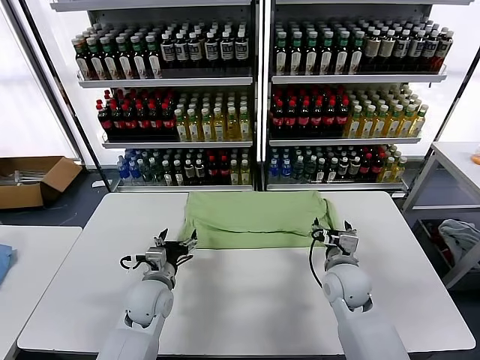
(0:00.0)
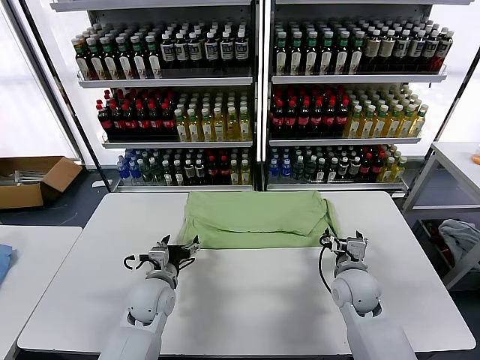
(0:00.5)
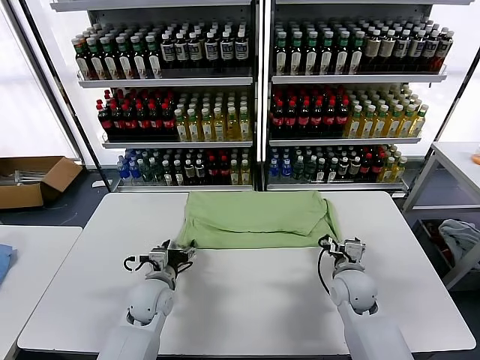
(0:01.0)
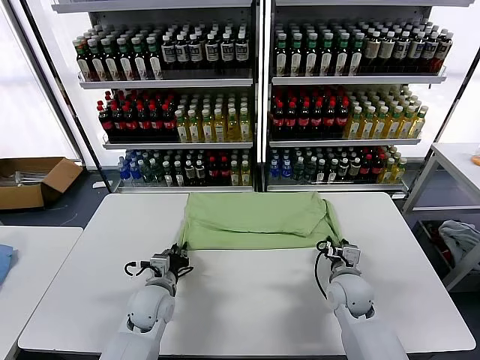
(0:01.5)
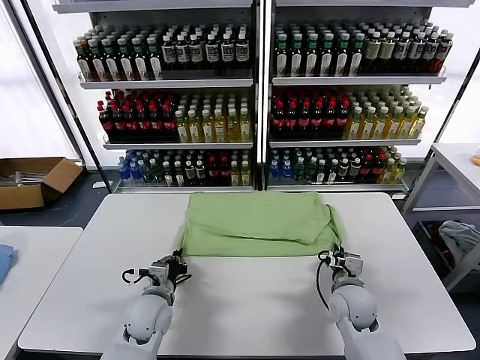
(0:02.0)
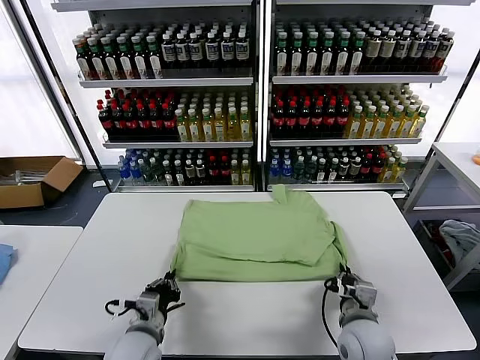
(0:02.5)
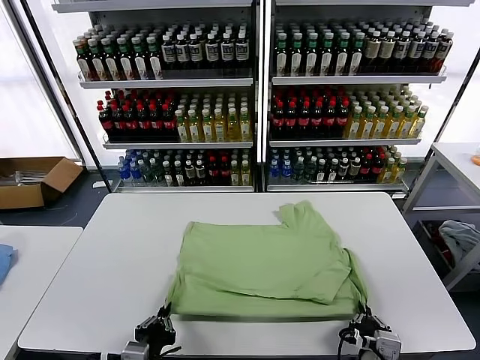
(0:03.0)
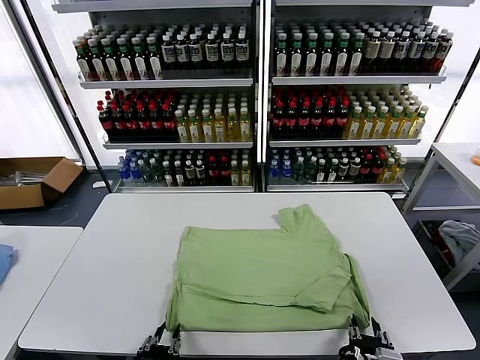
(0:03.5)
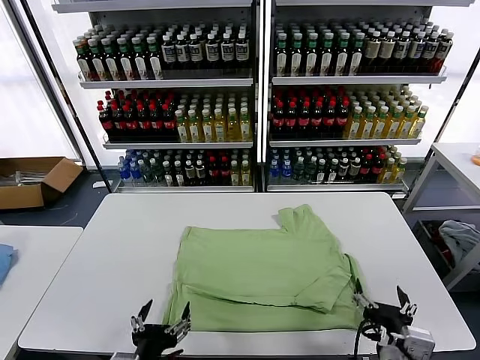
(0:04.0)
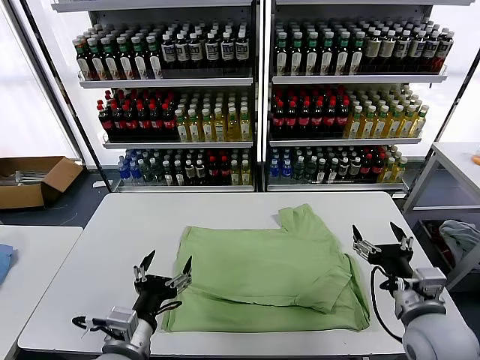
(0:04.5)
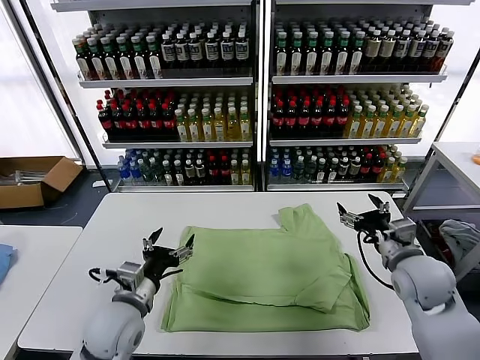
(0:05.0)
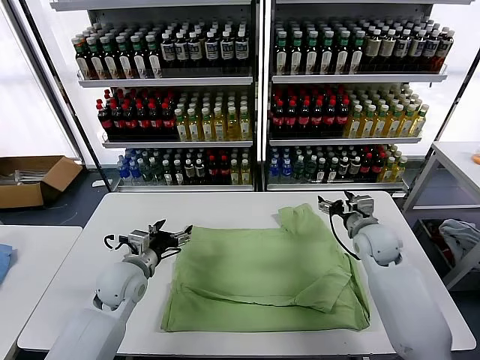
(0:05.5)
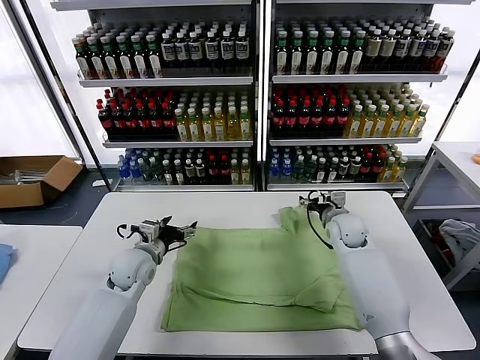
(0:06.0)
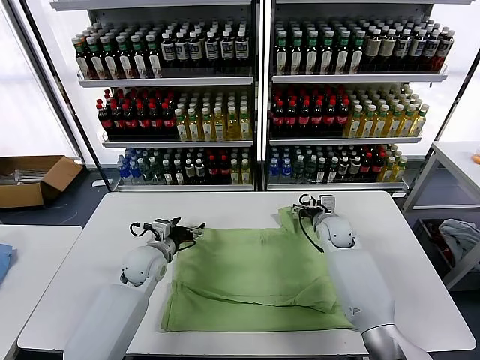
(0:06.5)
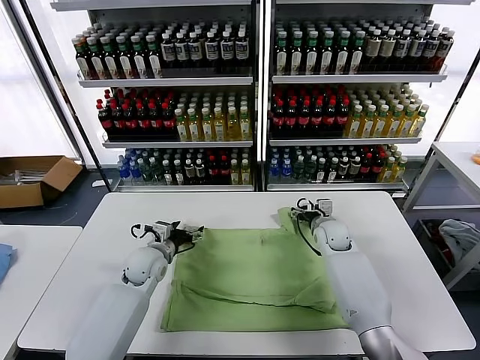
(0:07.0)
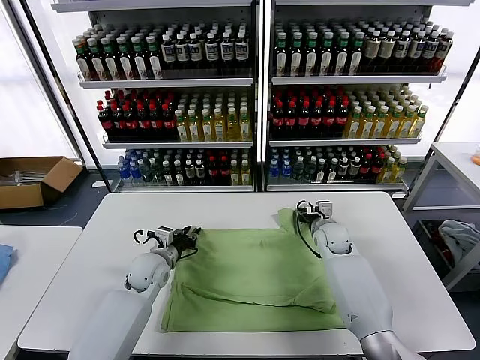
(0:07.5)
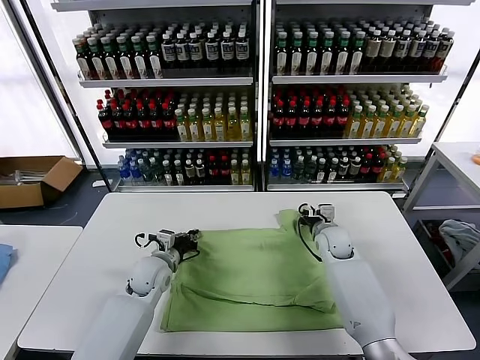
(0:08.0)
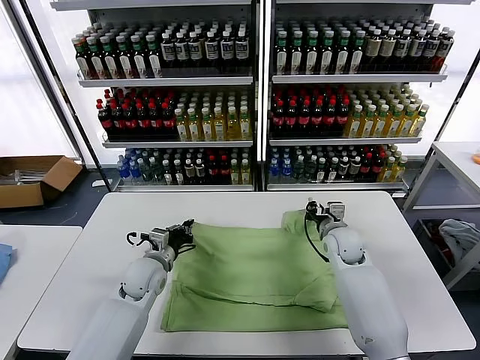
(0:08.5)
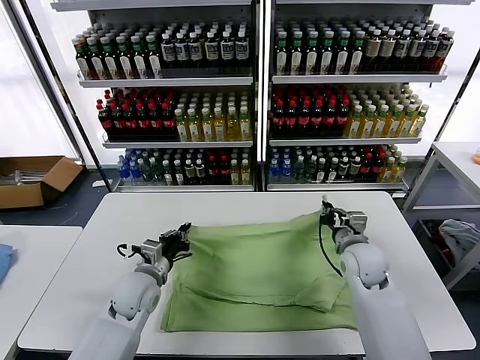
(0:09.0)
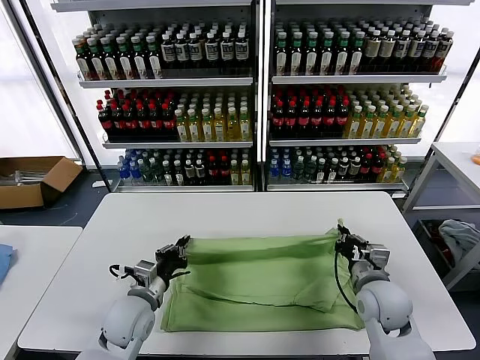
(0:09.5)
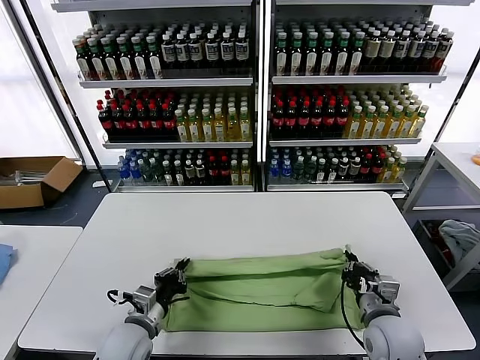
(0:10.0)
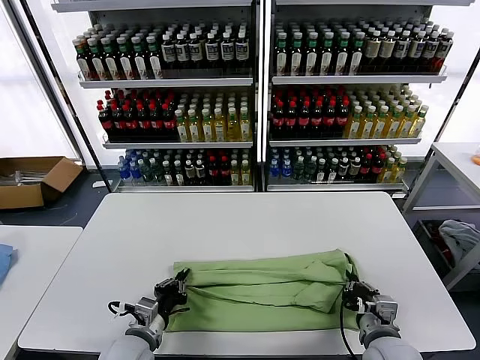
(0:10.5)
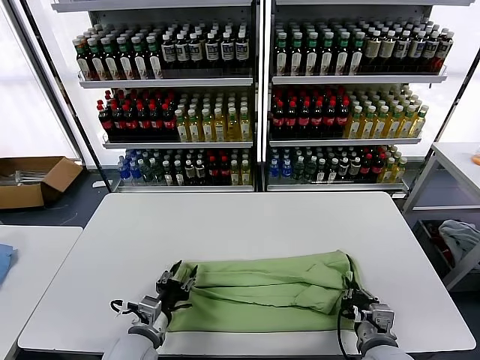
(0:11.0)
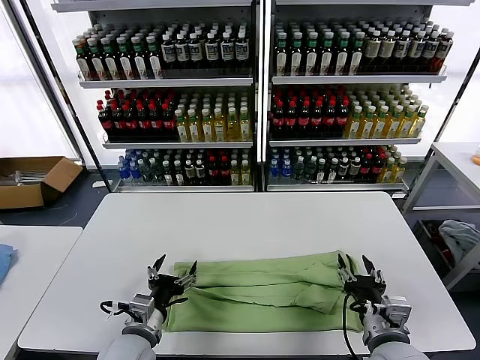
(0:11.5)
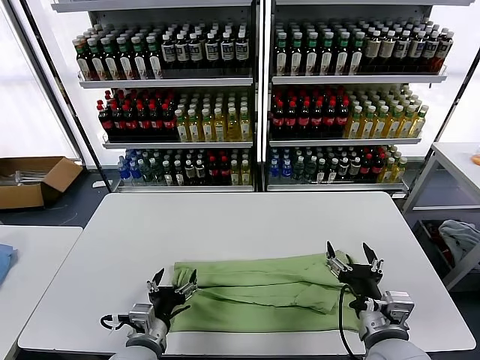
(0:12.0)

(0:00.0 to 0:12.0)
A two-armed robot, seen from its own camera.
Task of the whole recording: fold and organize the clothes.
Step, 0:00.0 - 0:03.5: Drag the clothes downward with both gripper.
Step, 0:04.0 - 0:07.5: use both grippers simultaneously to clamp the upper edge of the clothing fabric.
Step, 0:08.0 - 0:11.0: use both grippers to drag the upper edge of the fabric backward and fold it over the lower edge.
0:00.0 - 0:02.0: The right gripper changes place by some 5 cm, and closes up, while the left gripper closes its fingers.
0:02.0 - 0:04.0: The two grippers go some 25 cm backward and upward. The right gripper opens up; the left gripper opens up.
0:04.0 - 0:06.0: The two grippers go roughly 35 cm forward.
0:06.0 - 0:08.0: The right gripper closes, while the left gripper closes.
0:08.0 - 0:10.0: The left gripper moves backward, some 15 cm, while the right gripper travels backward by about 25 cm.
0:10.0 - 0:12.0: The left gripper shifts by about 5 cm, and opens its fingers. The right gripper goes approximately 10 cm upward and backward, and opens.

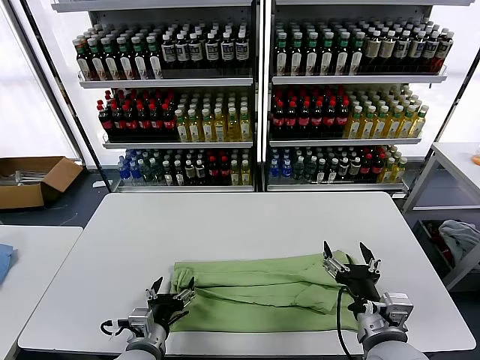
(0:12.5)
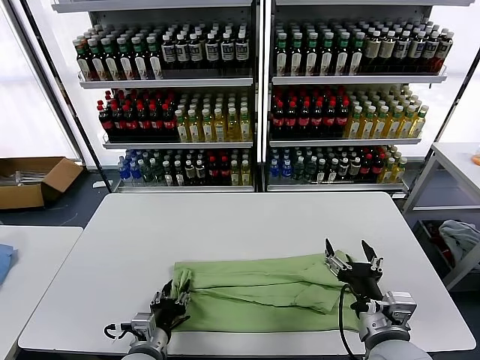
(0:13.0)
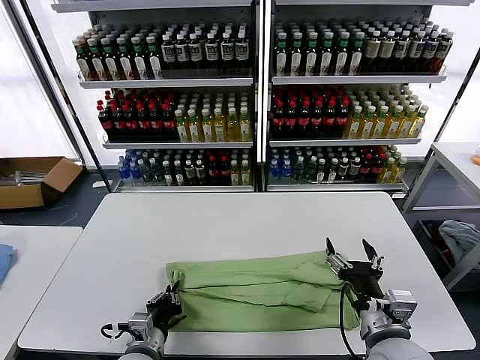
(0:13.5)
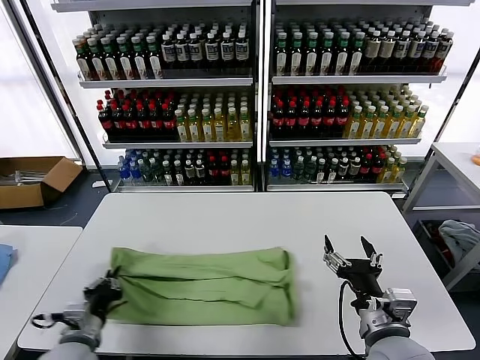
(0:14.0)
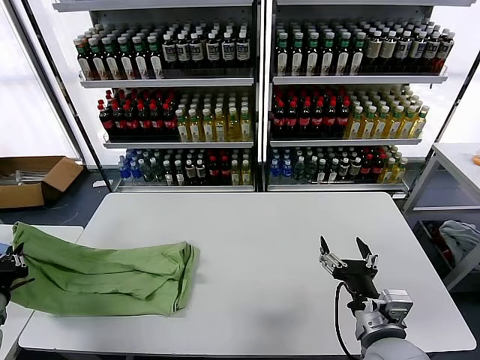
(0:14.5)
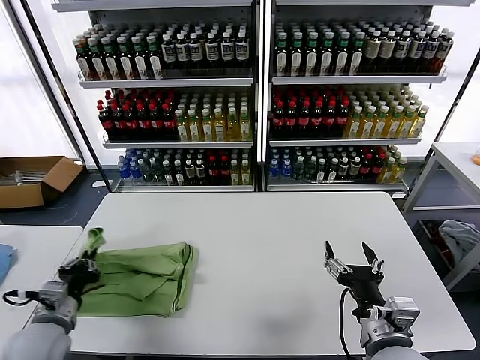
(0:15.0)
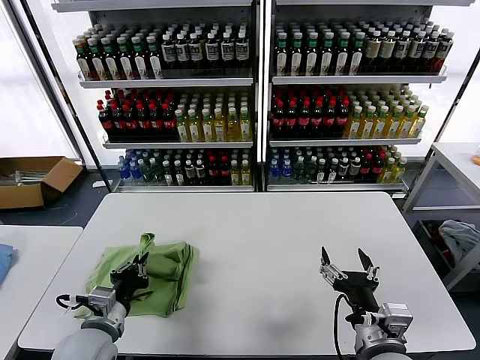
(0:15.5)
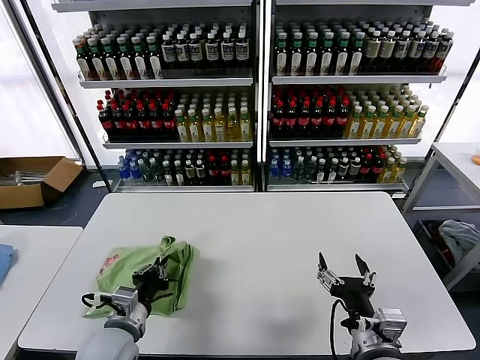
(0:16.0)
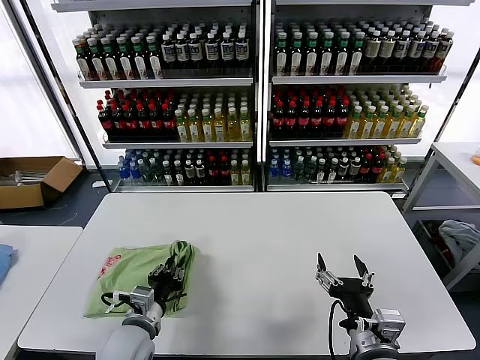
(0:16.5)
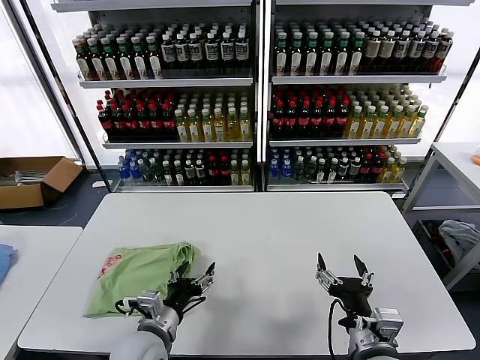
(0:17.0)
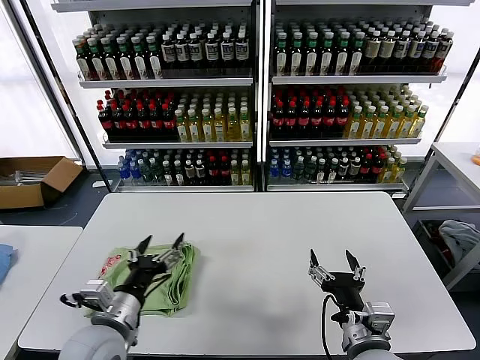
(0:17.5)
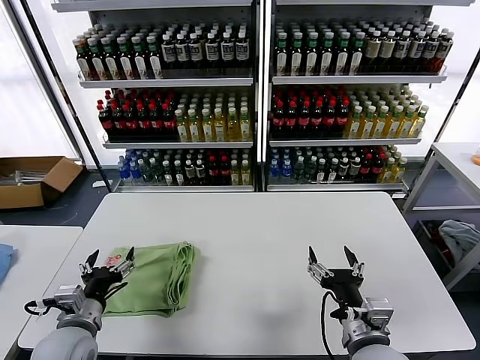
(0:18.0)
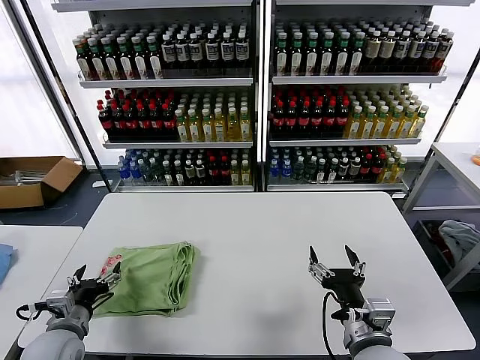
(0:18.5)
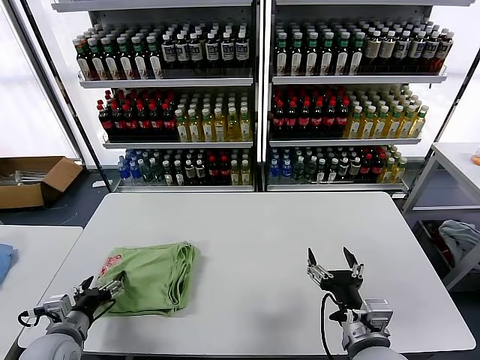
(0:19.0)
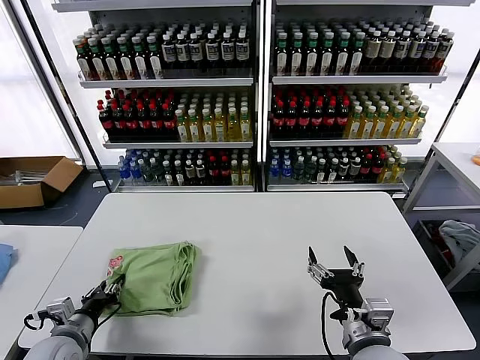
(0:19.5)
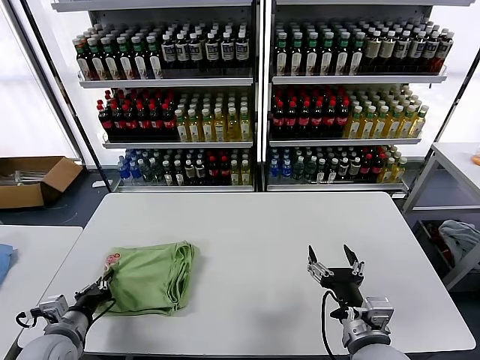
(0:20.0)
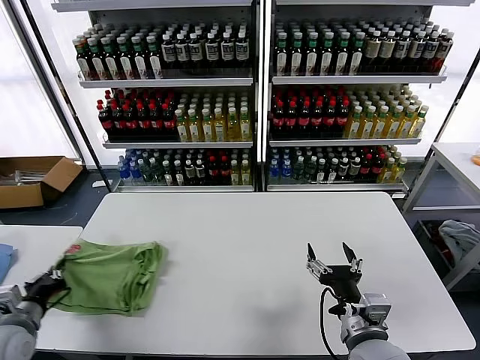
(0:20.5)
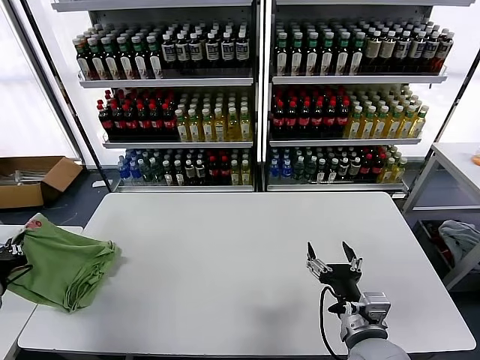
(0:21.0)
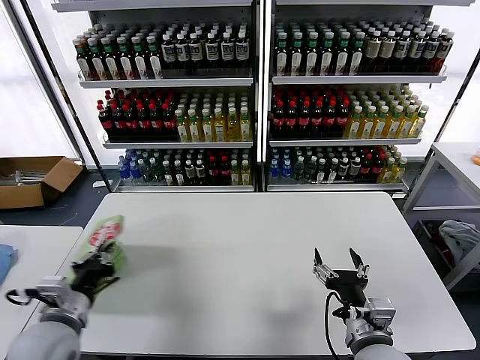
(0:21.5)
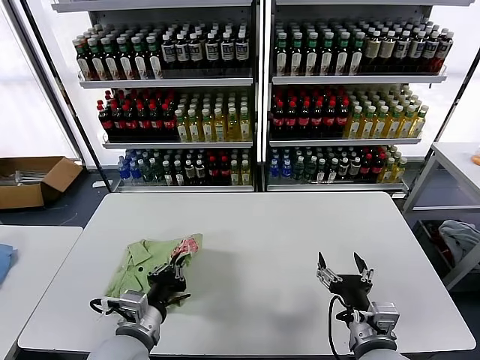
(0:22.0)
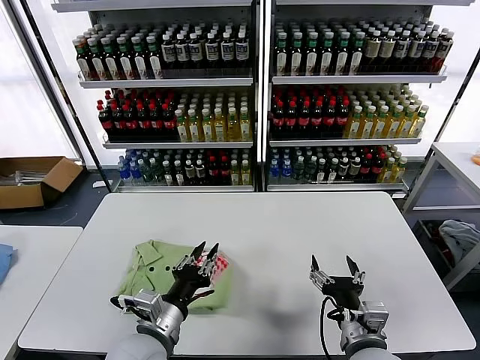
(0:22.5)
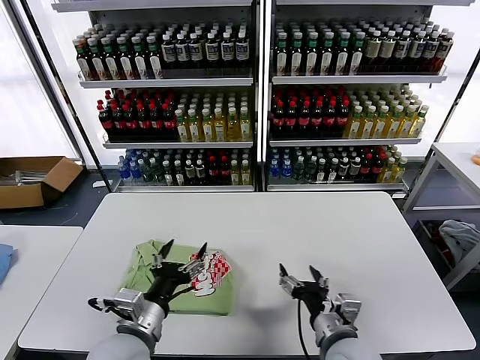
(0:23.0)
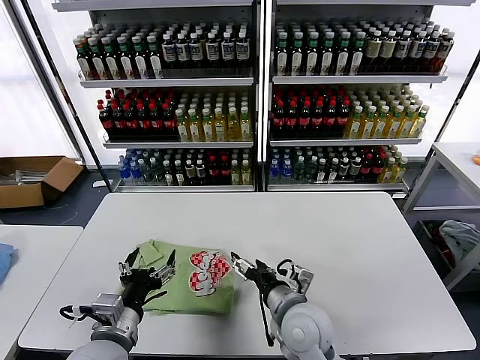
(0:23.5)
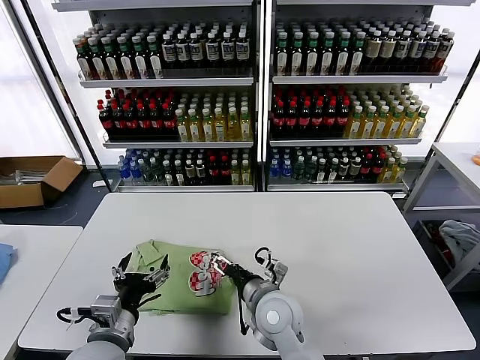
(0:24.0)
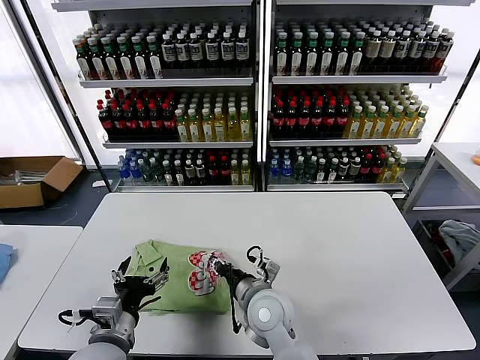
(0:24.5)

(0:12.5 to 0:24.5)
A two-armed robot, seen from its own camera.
Task of the whole recording: fold and organize the clothes.
Step, 0:13.5 - 0:16.5: use the left gripper to drag the left edge of the fabric to the left and folds it over the right edge.
Step, 0:17.0 - 0:22.5: Flip the folded clothes over with left gripper.
0:12.5 - 0:14.5: The left gripper moves to the left, about 30 cm, and closes.
0:14.5 - 0:16.5: The left gripper travels to the right by about 25 cm.
0:16.5 - 0:18.5: The left gripper travels to the left by roughly 15 cm, and opens up.
0:18.5 - 0:20.5: The left gripper goes some 10 cm to the left, and closes its fingers.
0:20.5 - 0:22.5: The left gripper heads to the right, covering about 25 cm.
0:22.5 - 0:24.5: The left gripper moves to the left, approximately 5 cm, and opens up. Meanwhile the right gripper goes approximately 20 cm to the left and forward, and closes up.

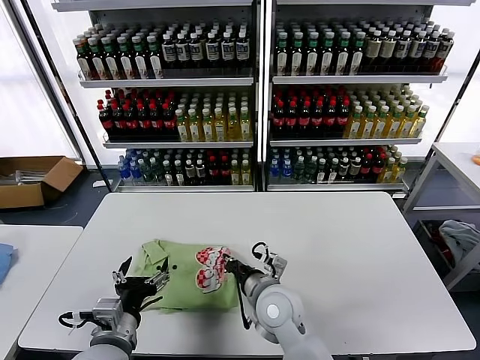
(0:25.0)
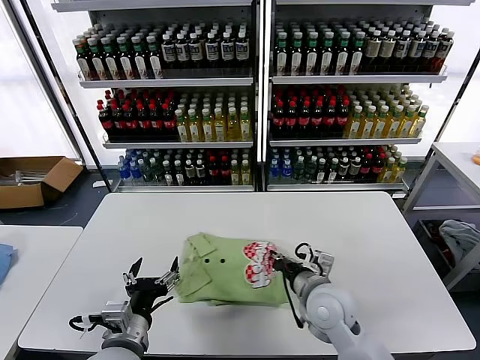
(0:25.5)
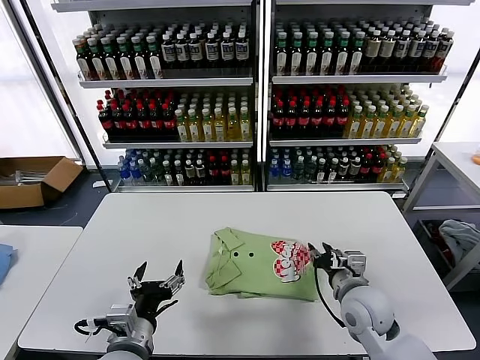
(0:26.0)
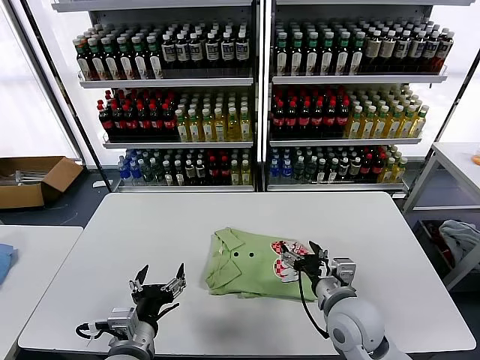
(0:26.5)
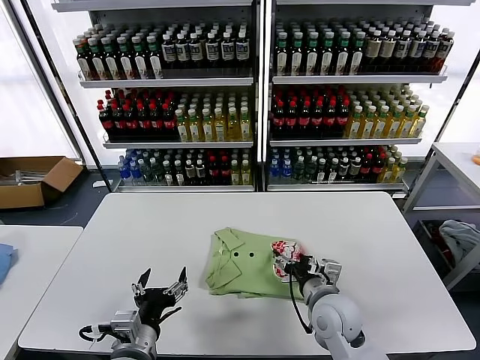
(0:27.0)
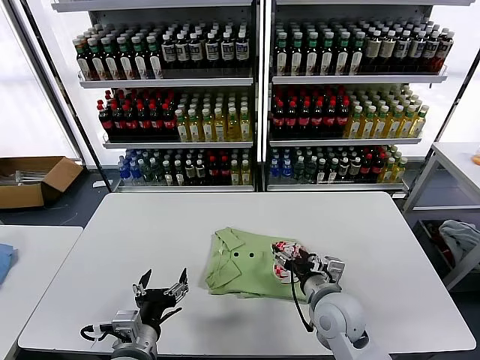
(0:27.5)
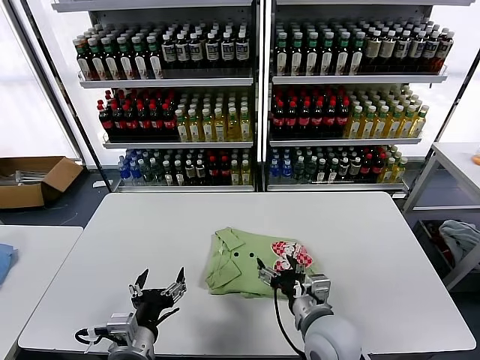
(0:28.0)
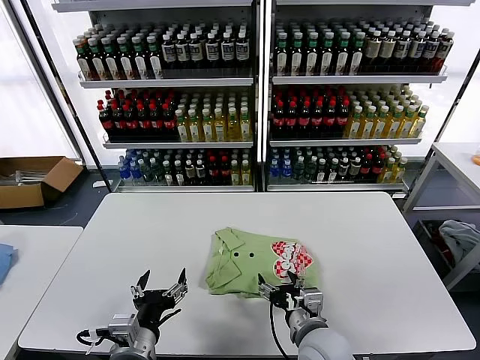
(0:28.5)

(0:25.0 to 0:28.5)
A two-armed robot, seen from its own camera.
Task of the whole recording: fold and organize the clothes.
0:25.0 - 0:27.0: The right gripper goes about 10 cm to the right, and opens up.
0:27.0 - 0:28.5: The right gripper travels backward by approximately 5 cm.
